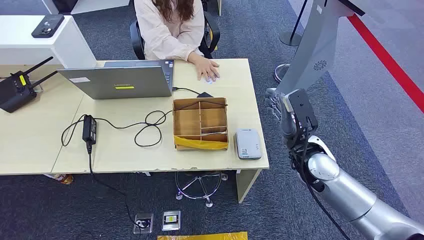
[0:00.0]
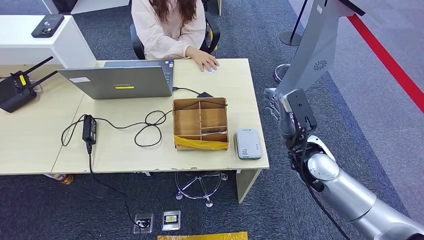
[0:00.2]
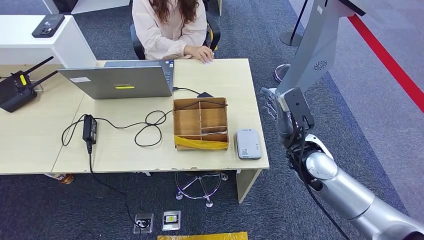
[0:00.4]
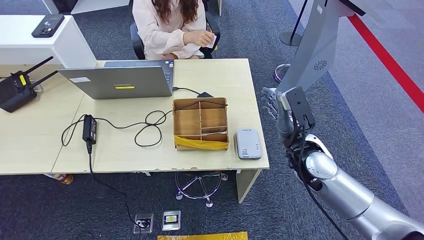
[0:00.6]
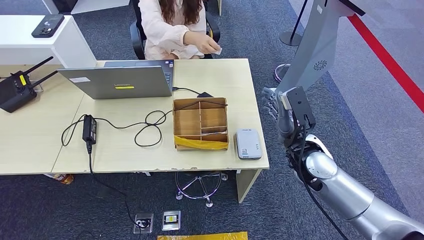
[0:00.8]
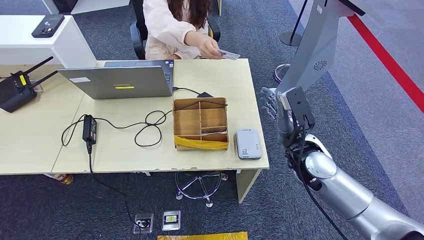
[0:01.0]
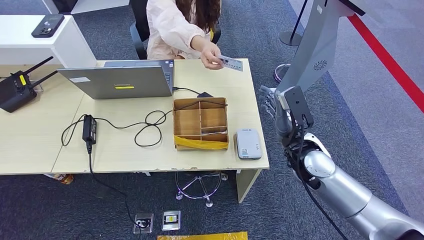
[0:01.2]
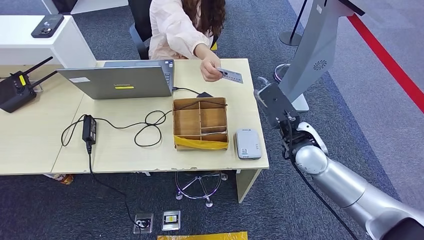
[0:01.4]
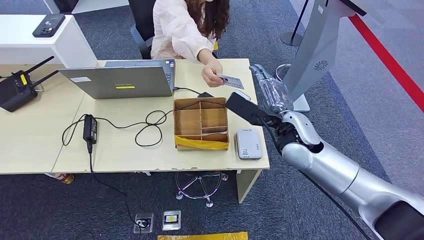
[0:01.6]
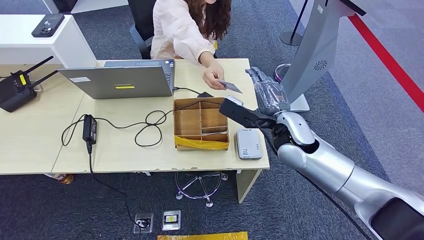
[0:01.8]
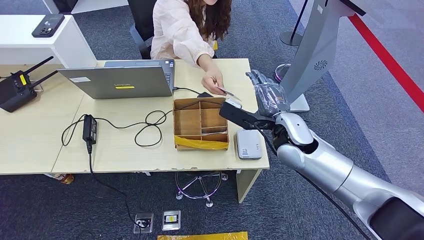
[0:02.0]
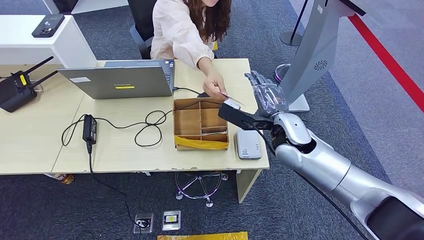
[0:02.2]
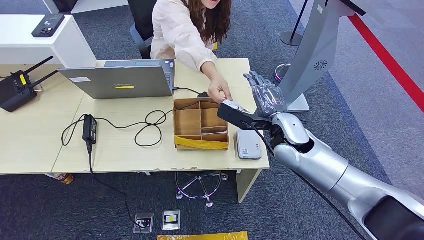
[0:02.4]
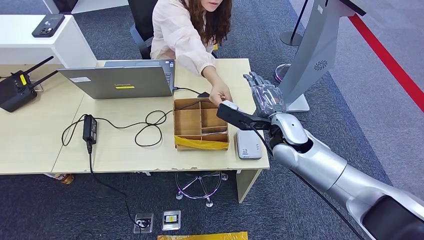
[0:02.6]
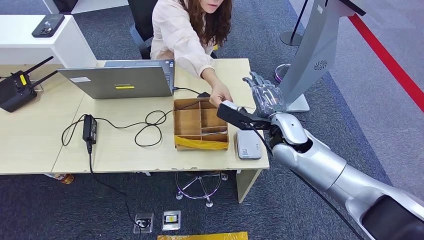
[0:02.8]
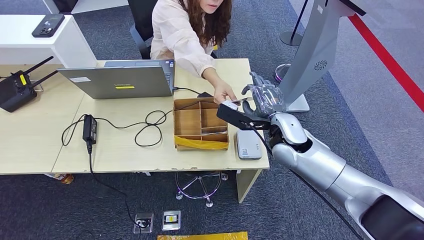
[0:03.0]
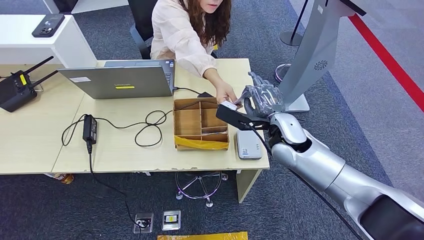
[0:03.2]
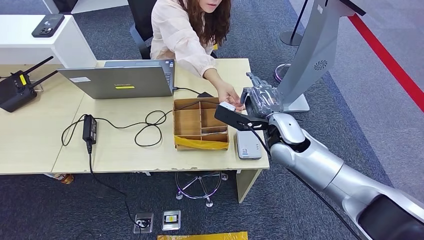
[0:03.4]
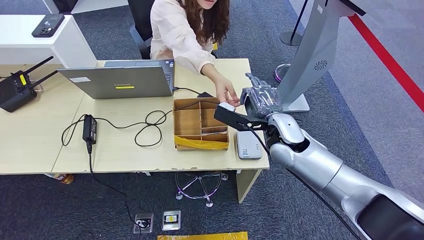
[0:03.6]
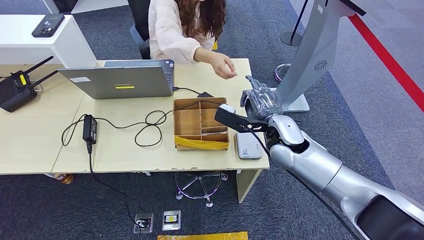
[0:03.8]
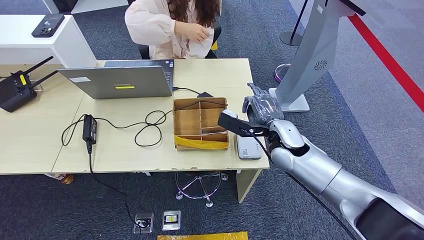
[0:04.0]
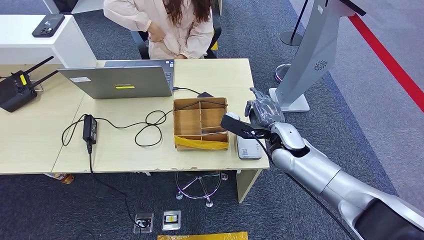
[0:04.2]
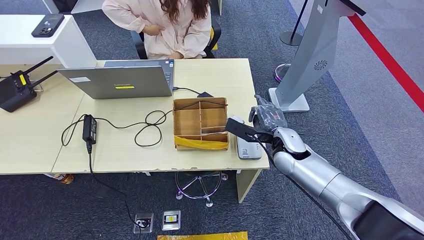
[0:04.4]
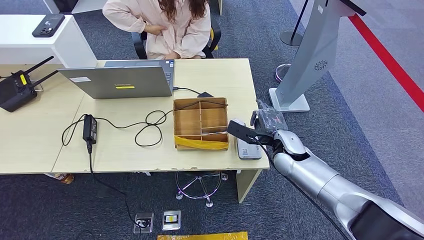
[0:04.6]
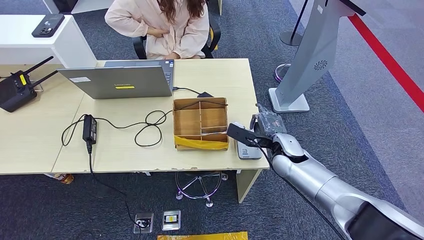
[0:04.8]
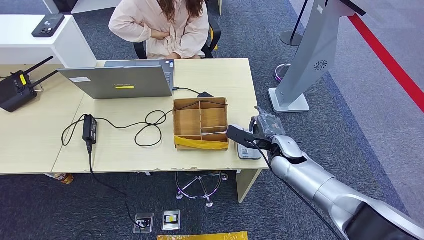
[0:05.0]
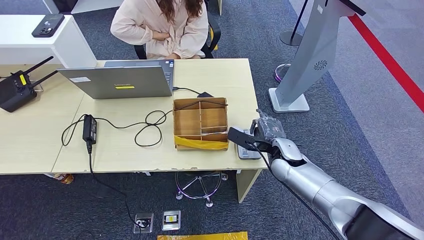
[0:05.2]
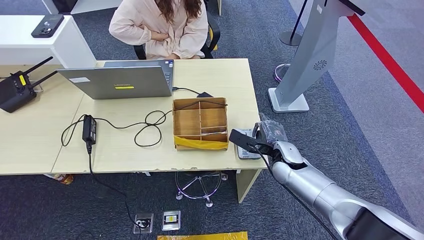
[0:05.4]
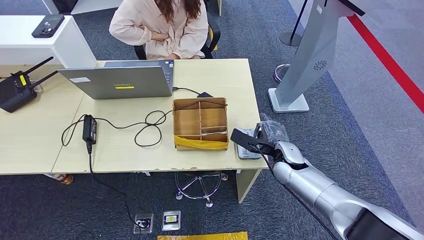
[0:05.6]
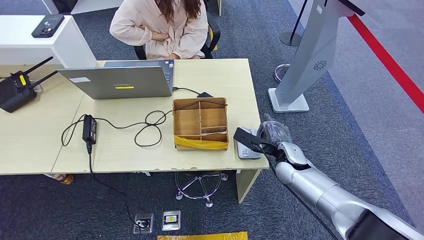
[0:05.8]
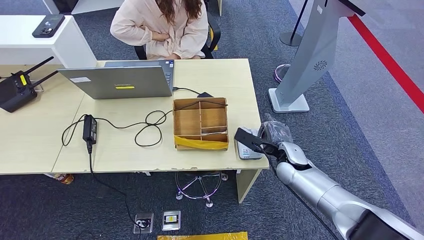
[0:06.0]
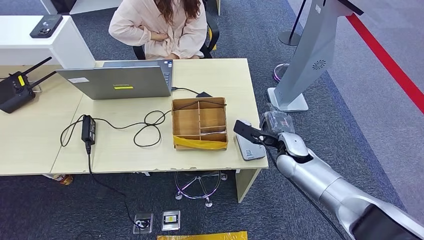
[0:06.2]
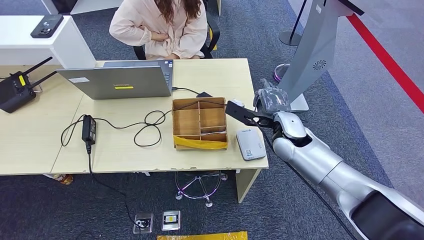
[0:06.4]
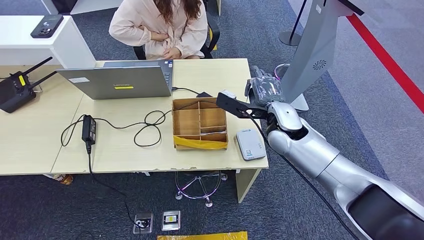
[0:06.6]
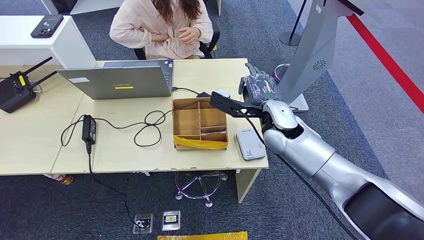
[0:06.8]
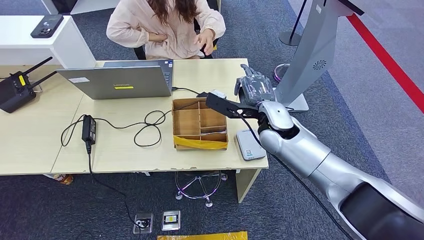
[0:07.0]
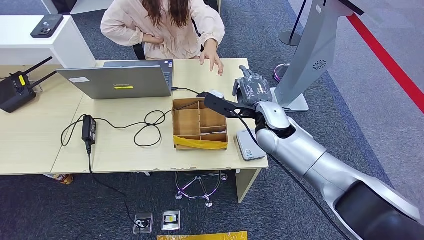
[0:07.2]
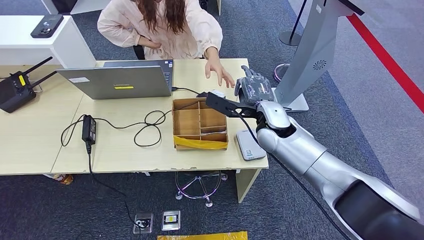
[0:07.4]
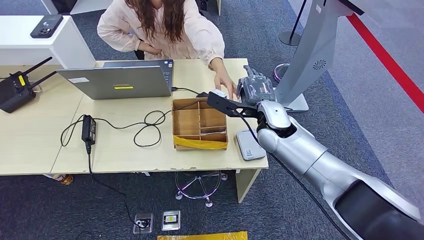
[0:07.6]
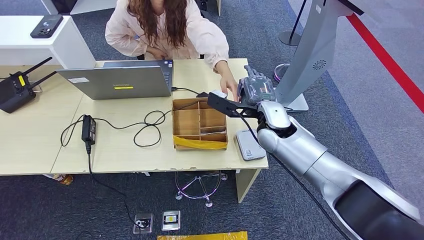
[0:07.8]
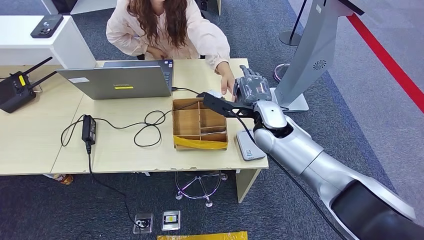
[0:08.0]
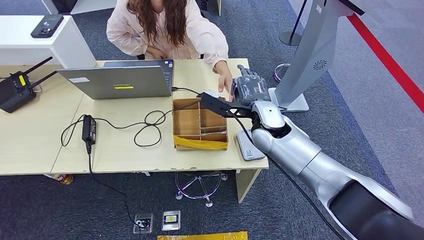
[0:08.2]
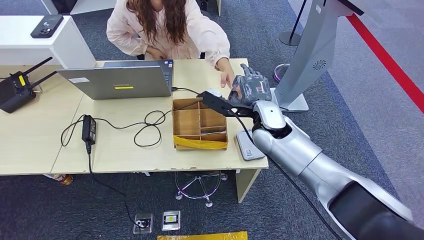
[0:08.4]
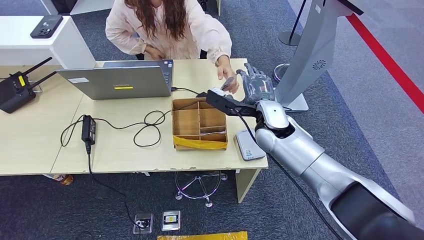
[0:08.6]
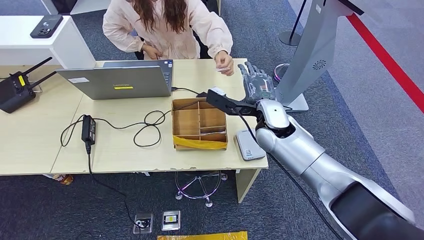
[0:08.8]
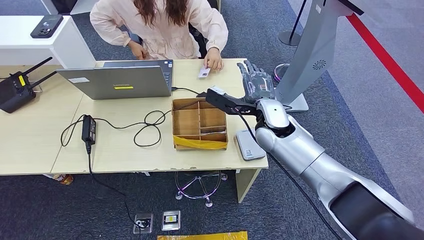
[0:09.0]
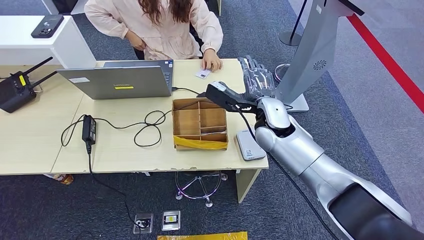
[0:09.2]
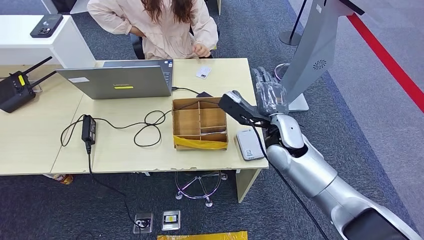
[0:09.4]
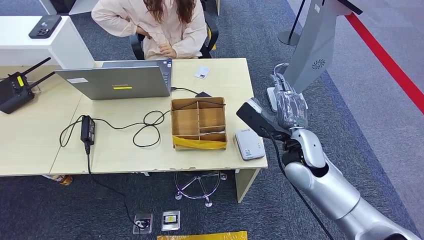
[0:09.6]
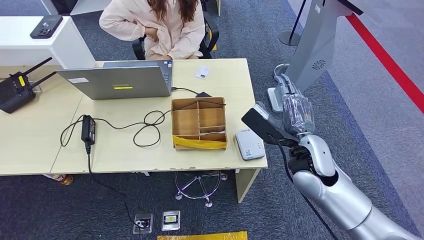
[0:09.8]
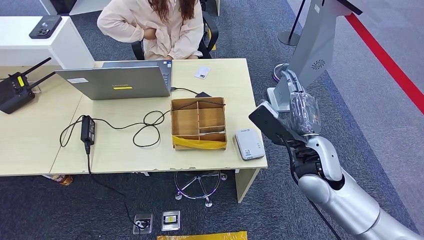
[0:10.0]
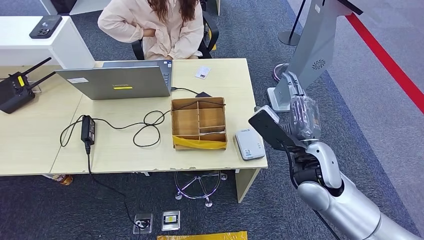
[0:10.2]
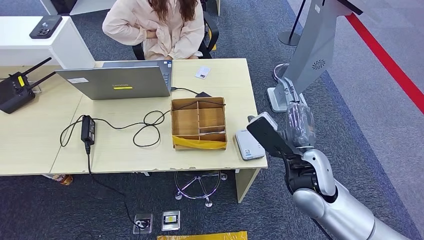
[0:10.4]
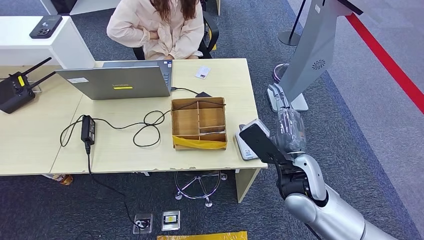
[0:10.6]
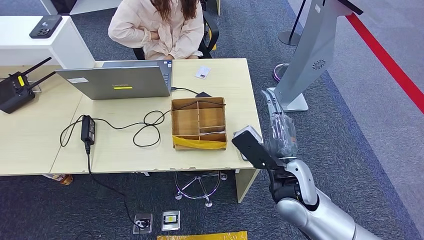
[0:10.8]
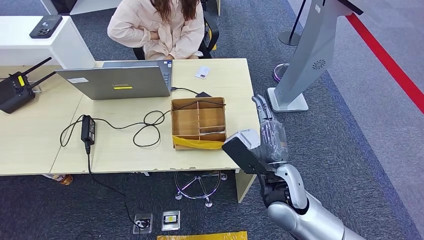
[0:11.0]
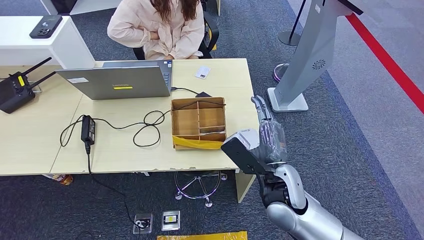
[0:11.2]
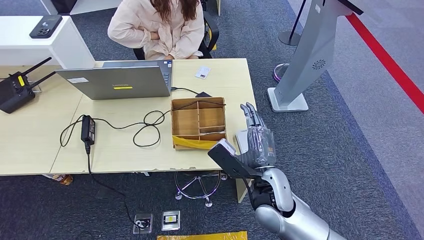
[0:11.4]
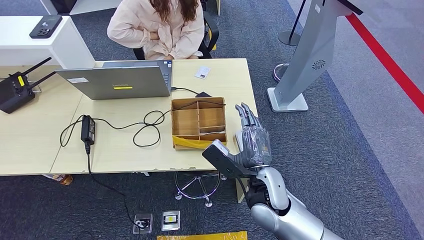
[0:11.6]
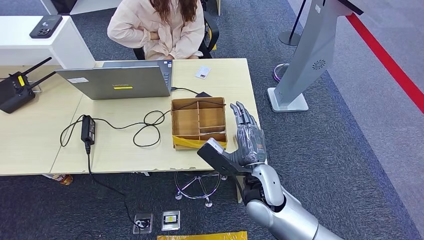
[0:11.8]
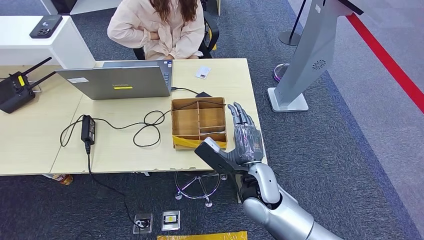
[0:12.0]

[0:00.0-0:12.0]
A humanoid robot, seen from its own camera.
Step, 0.0 to 4.0 s: Take the ID card from the person's hand.
Step, 4.4 to 6.0 s: Place the ID card on the card reader.
Step, 6.8 to 8.8 s: Hand the ID card to the person.
1.6 to 3.0 s: The hands make only small movements.
3.0 to 4.4 s: The right hand moves downward, some 5 cm.
4.4 to 6.0 s: The right hand is displaced downward by roughly 5 cm.
7.6 to 9.0 s: The two hands keep their place.
9.0 to 10.4 s: The right hand is displaced backward by some 15 cm.
10.4 to 12.0 s: The right hand moves to the left and downward, roughly 15 cm.

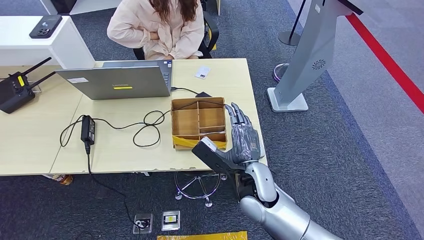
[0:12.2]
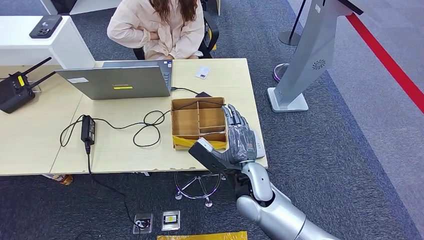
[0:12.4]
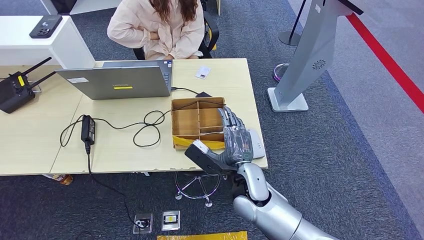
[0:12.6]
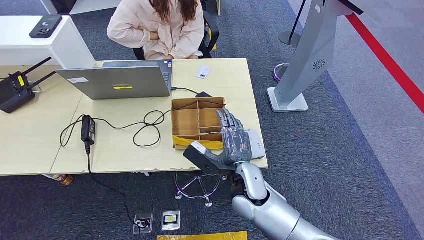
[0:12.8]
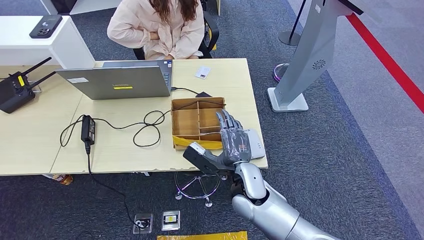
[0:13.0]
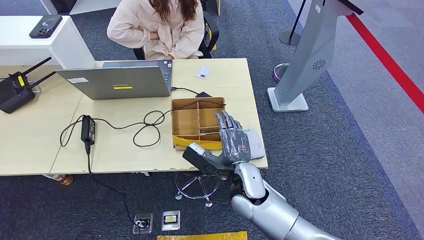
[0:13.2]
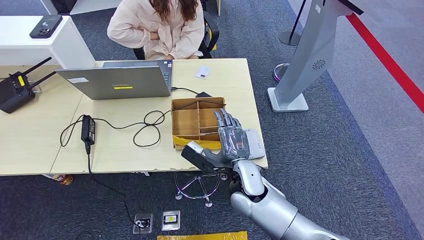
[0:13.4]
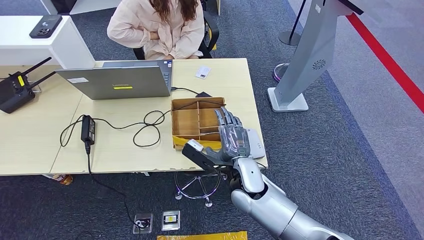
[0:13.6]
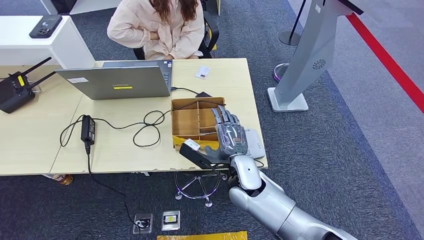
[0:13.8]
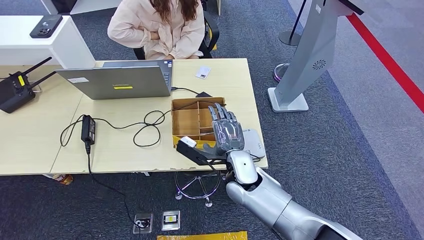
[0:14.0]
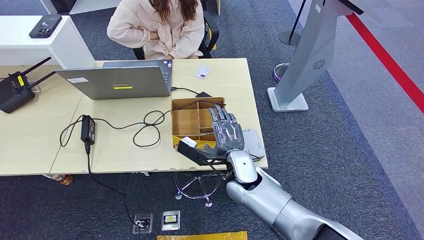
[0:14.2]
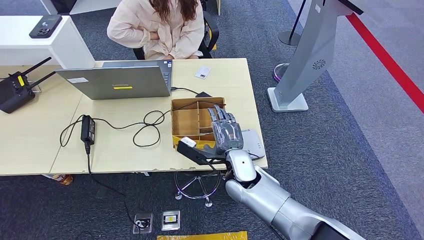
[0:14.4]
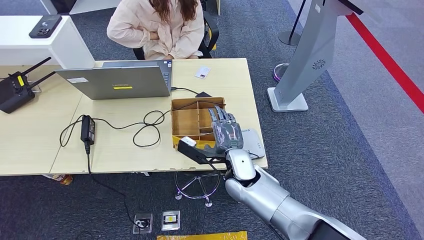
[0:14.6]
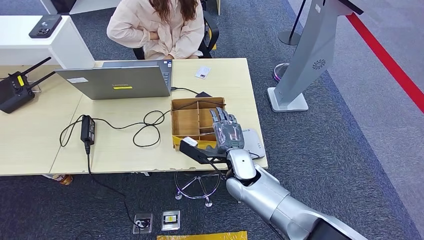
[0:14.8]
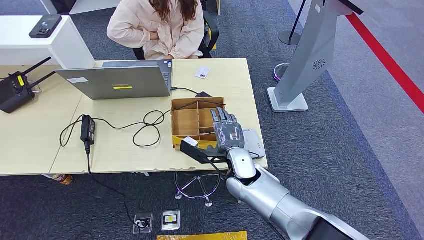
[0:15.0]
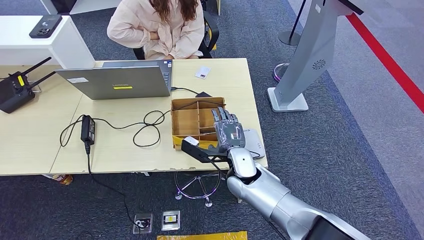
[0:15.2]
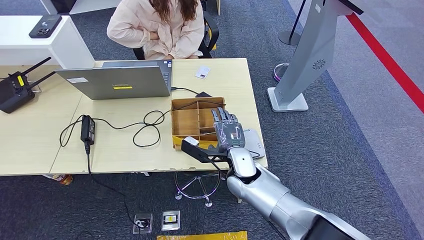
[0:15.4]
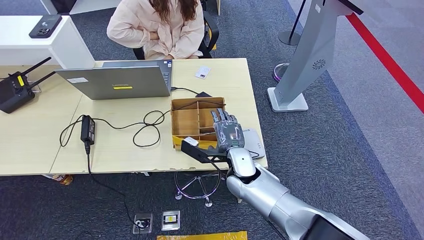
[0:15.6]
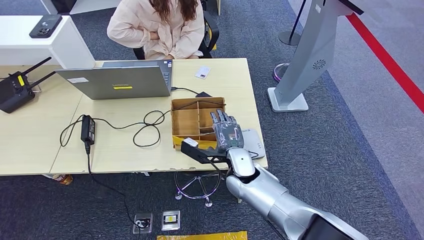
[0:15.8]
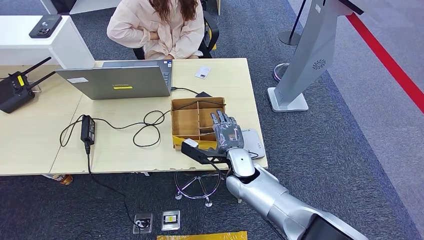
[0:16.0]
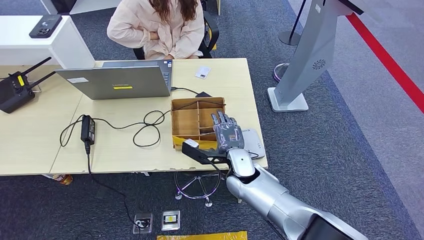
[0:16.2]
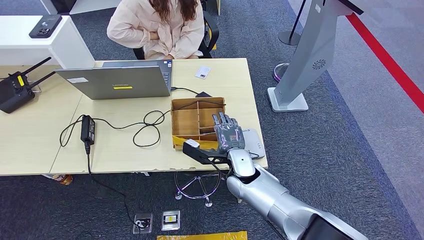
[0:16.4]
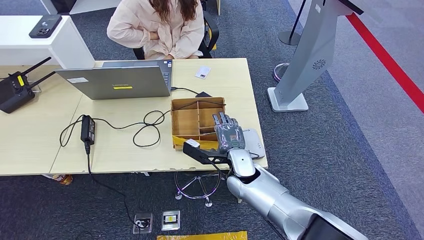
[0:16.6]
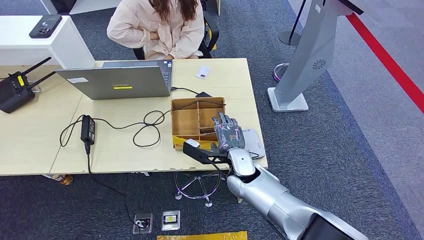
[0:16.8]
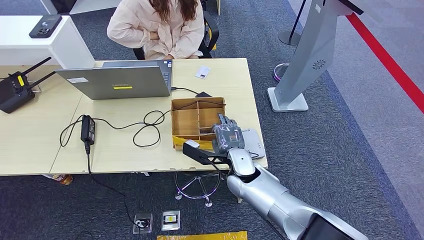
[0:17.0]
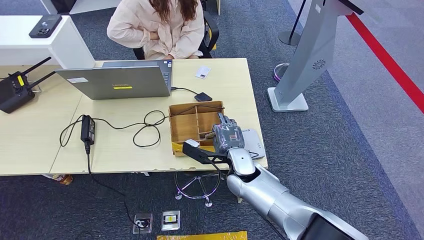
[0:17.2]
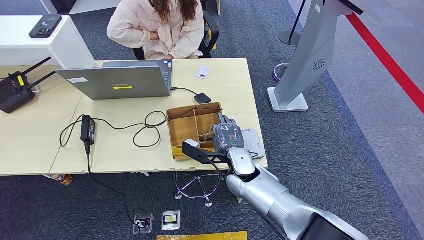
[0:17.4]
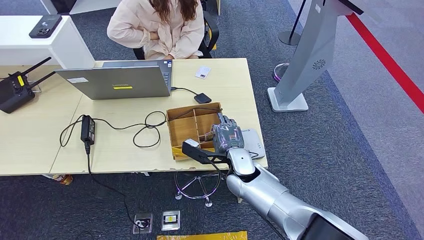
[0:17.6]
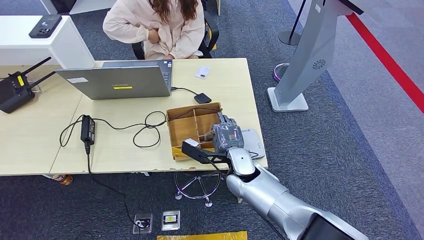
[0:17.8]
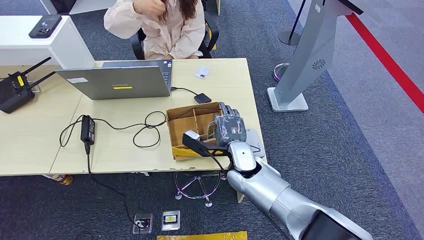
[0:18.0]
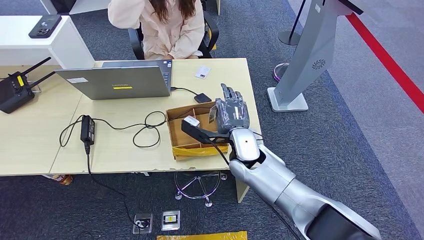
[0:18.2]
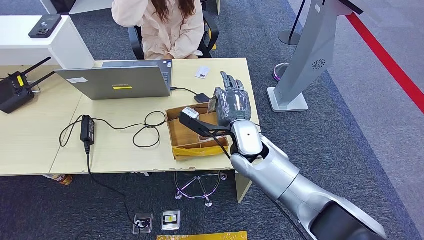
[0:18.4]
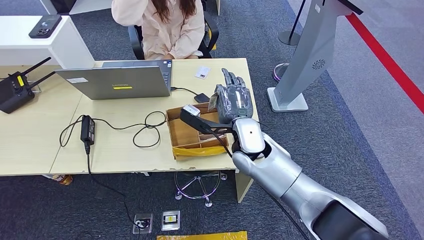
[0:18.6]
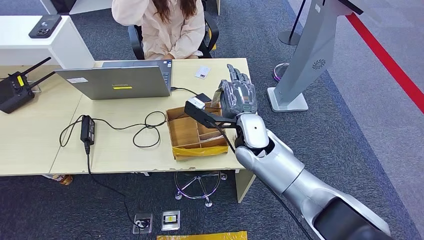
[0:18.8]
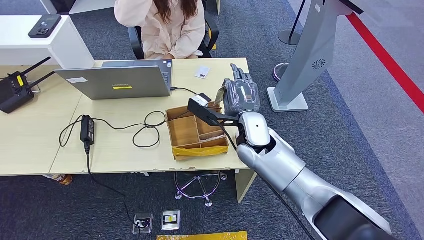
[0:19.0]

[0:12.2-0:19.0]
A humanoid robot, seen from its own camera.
Step, 14.4 to 18.4 s: Pick up the room key from the key card box.
12.2 to 13.6 s: The hands make only small movements.
13.6 to 15.0 s: The hands make only small movements.
15.0 to 16.2 s: Both hands stay put.
16.2 to 17.6 s: Neither hand changes place.
17.6 to 19.0 s: The right hand moves upward, approximately 10 cm.
